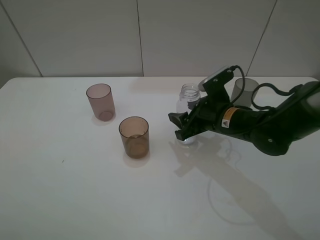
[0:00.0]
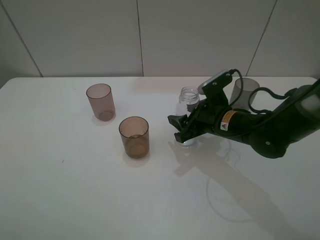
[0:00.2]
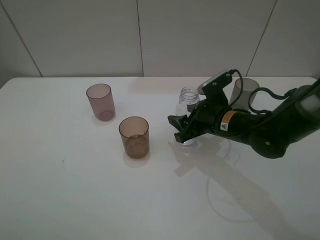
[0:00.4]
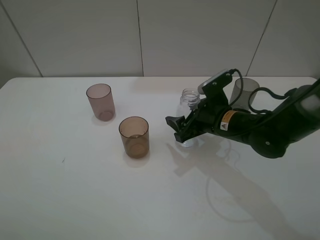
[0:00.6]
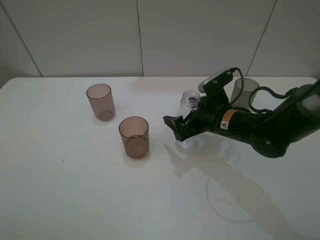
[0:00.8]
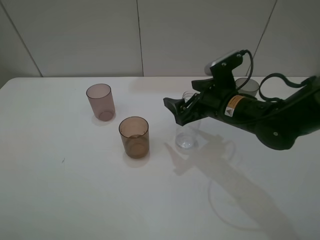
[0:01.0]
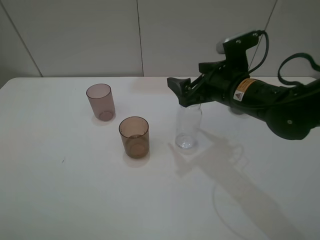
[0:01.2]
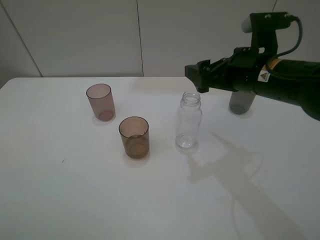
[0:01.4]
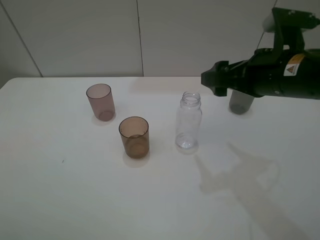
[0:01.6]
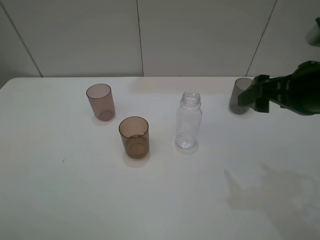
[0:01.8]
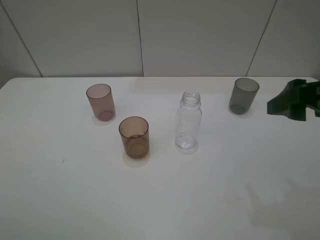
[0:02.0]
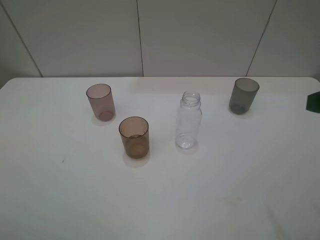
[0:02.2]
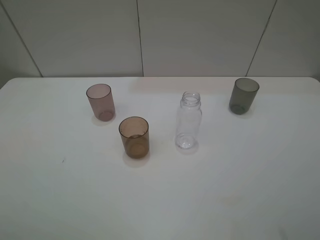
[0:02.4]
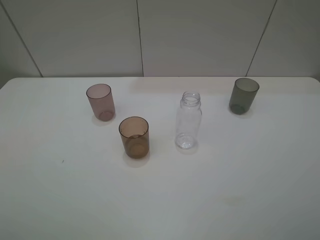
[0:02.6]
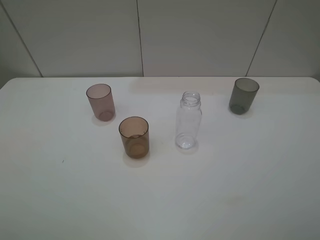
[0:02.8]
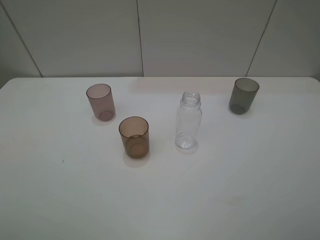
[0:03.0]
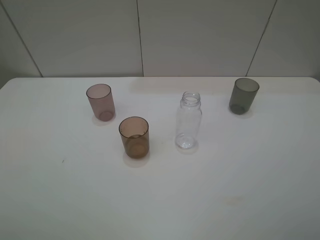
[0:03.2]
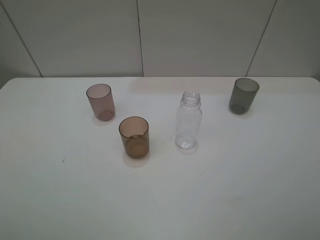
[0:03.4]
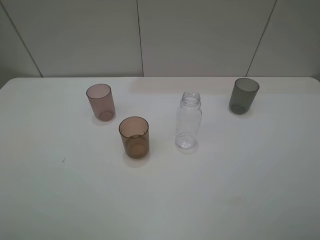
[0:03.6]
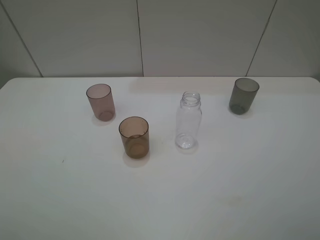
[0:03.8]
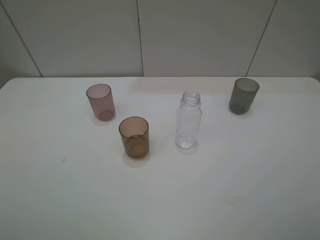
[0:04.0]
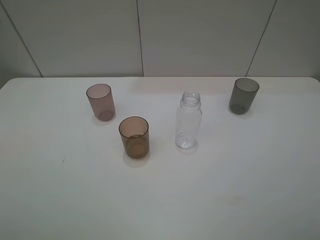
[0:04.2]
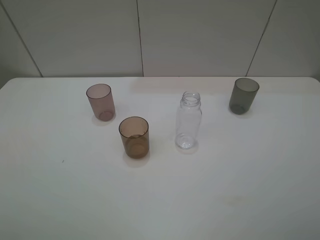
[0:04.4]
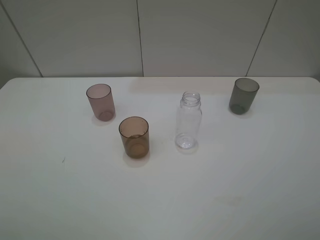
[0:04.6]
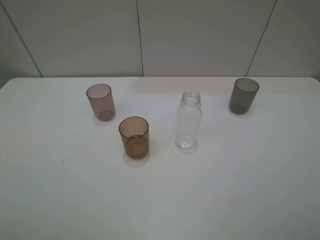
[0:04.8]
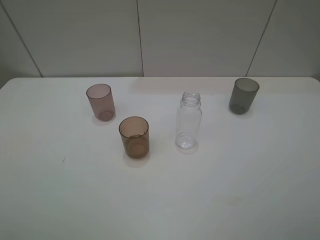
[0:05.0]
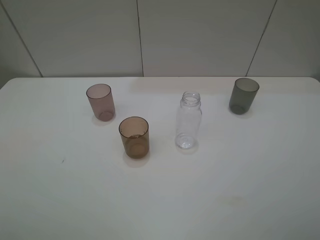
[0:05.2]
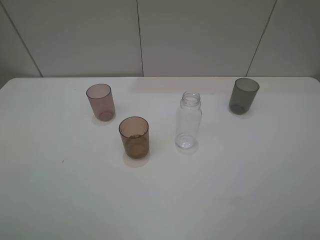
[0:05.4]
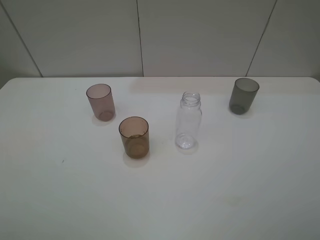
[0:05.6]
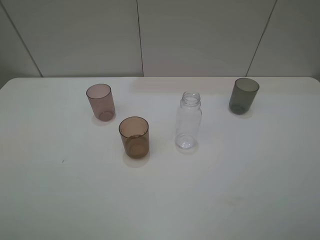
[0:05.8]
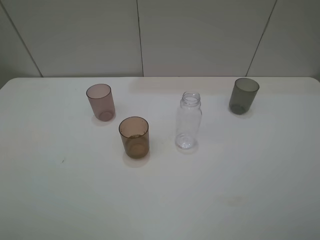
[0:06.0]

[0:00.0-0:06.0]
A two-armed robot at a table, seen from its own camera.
Task of the whole recording: pick up the bottle filled with water and pour water into the middle cup of the three cups.
0:00.0 to 0:01.6: The right gripper is displaced upward by roughly 15 cm, and opens.
0:01.6 to 0:03.0: The right gripper heads backward and to the right, covering some 25 cm.
